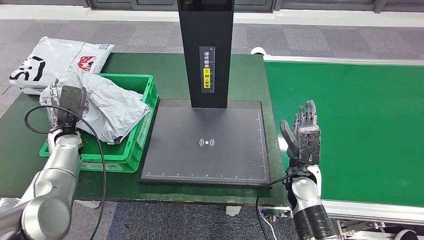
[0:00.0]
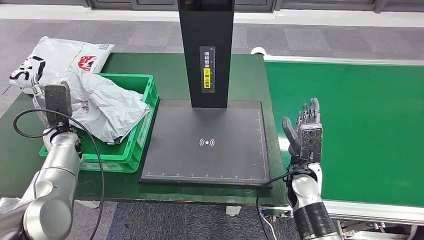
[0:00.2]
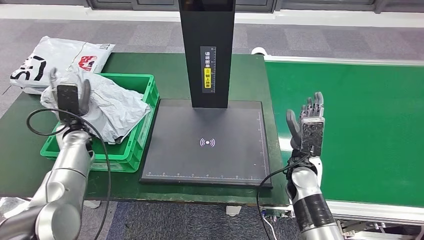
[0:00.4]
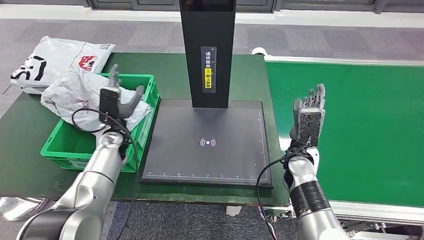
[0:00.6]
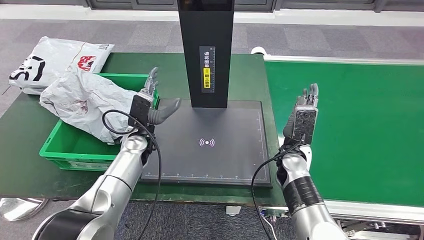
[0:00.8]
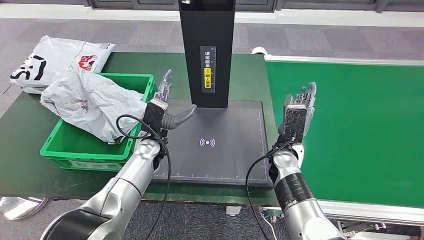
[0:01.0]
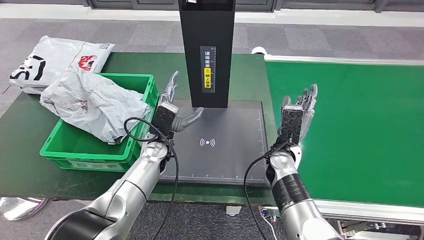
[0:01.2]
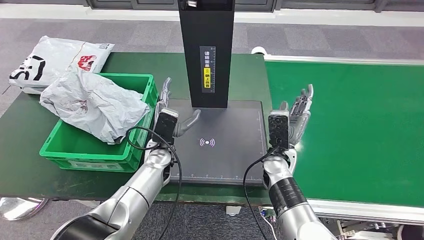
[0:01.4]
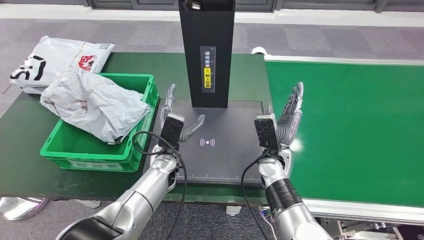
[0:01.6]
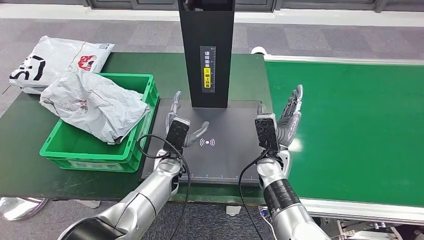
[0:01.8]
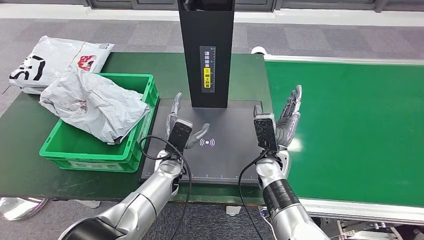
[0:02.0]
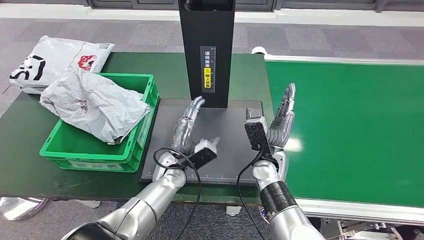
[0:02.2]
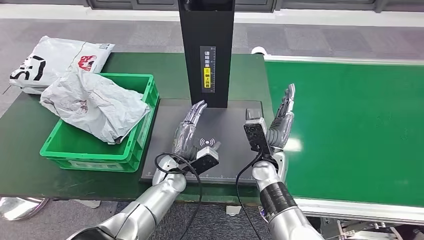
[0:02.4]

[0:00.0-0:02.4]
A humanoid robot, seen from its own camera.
Step, 0:00.0 to 0:02.2: Place the parcel into the delivery box.
0:01.2 to 0:02.4: The left hand shifts approximately 5 cm backward.

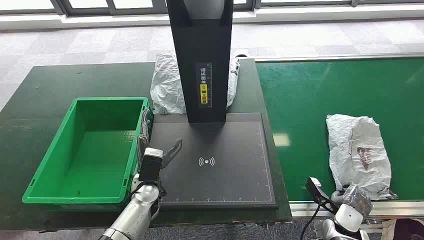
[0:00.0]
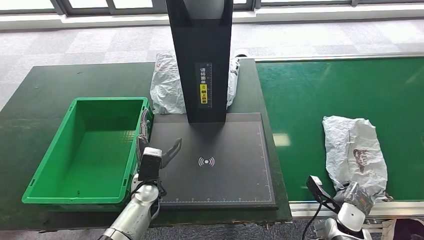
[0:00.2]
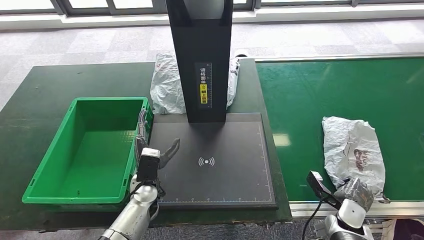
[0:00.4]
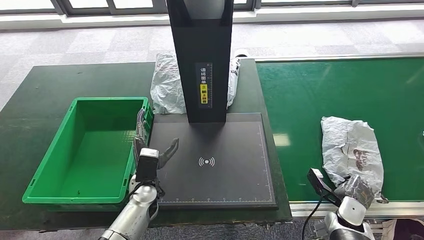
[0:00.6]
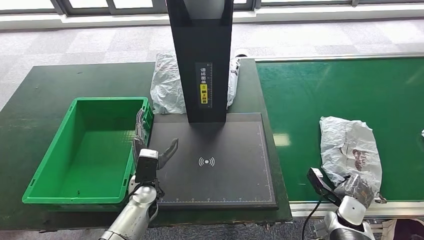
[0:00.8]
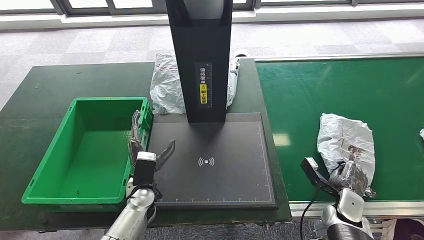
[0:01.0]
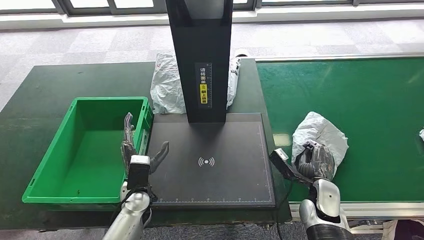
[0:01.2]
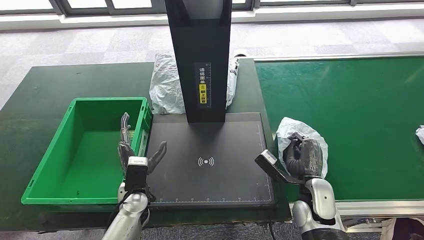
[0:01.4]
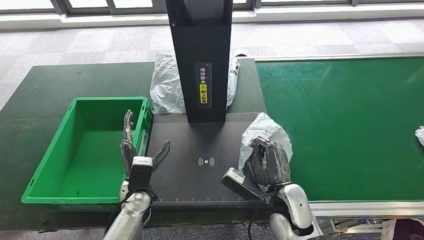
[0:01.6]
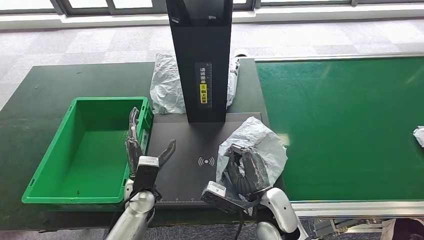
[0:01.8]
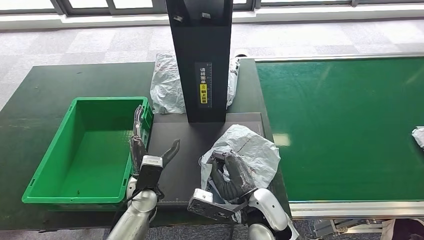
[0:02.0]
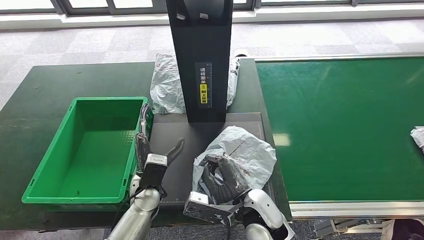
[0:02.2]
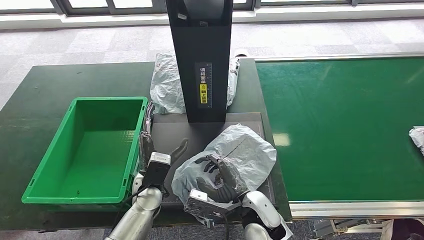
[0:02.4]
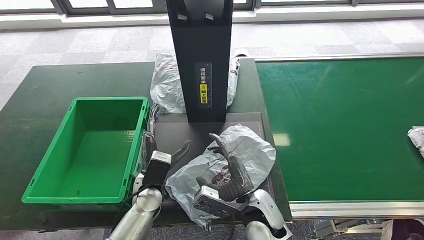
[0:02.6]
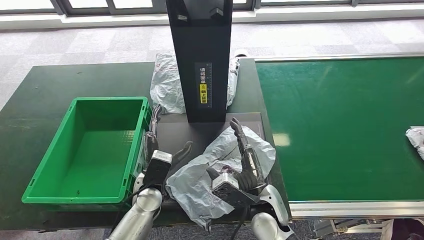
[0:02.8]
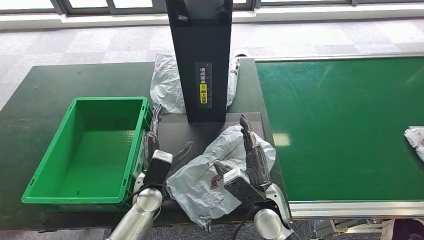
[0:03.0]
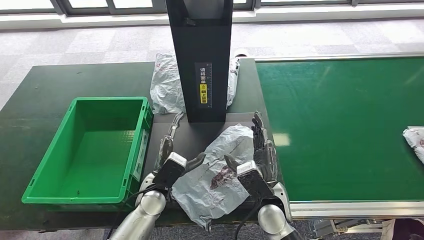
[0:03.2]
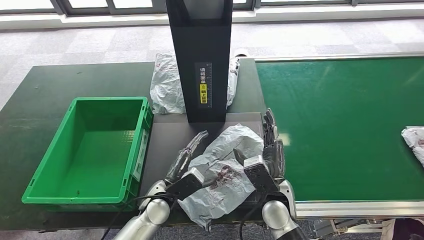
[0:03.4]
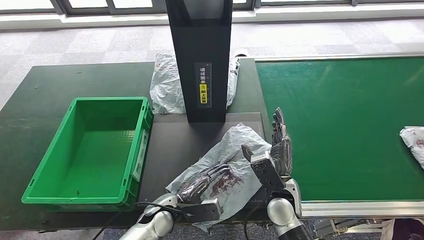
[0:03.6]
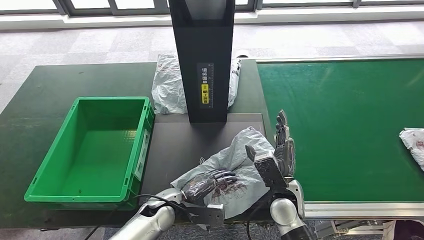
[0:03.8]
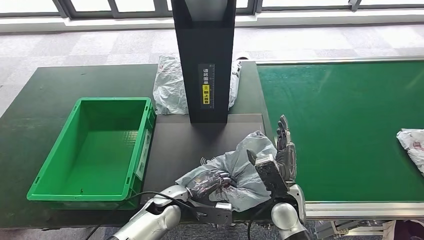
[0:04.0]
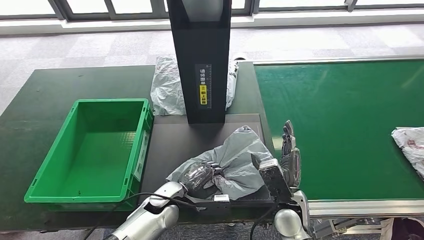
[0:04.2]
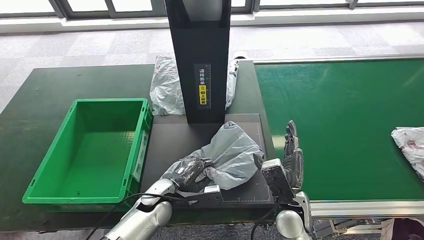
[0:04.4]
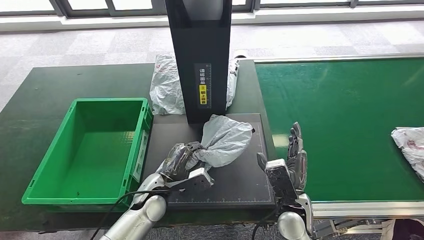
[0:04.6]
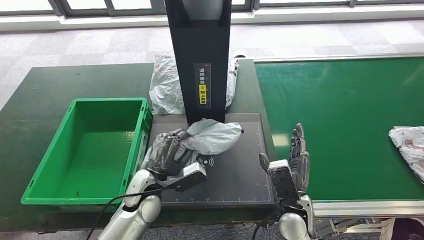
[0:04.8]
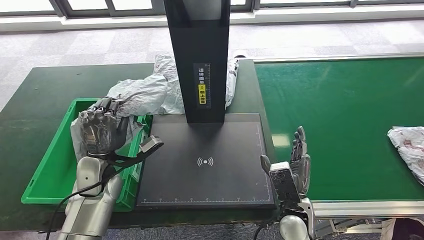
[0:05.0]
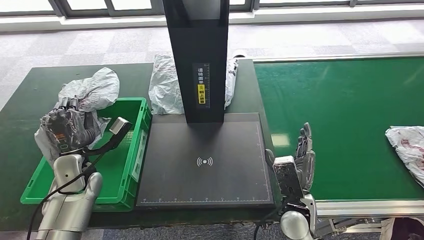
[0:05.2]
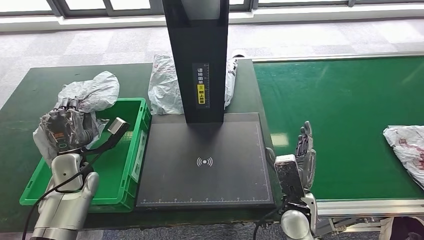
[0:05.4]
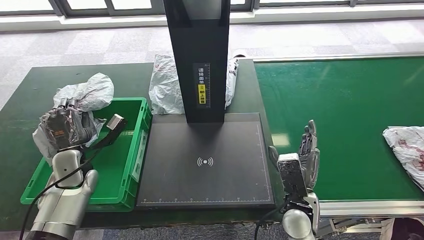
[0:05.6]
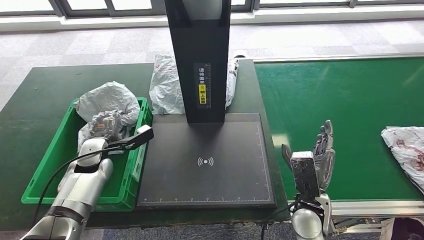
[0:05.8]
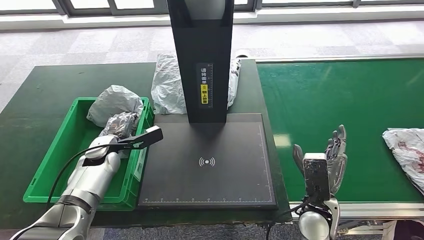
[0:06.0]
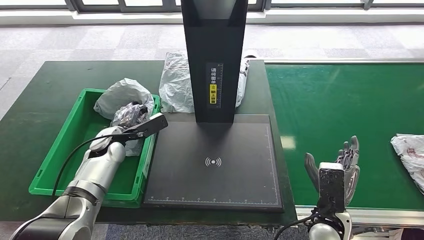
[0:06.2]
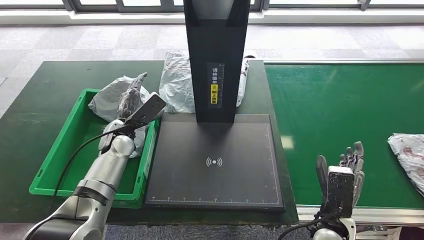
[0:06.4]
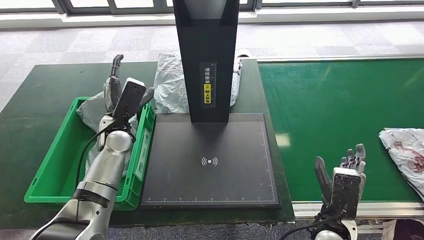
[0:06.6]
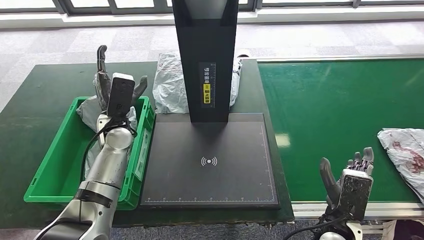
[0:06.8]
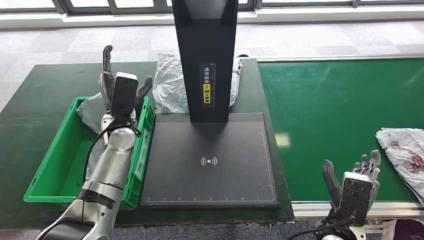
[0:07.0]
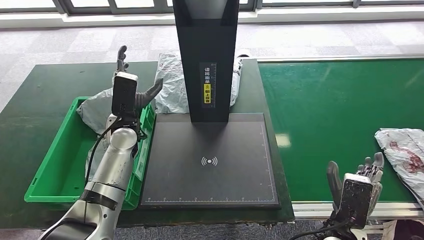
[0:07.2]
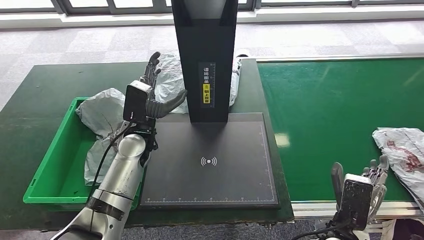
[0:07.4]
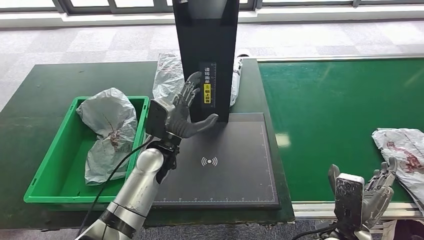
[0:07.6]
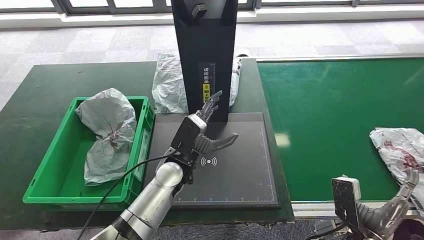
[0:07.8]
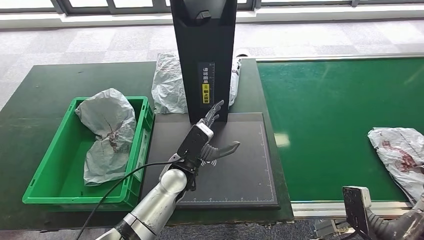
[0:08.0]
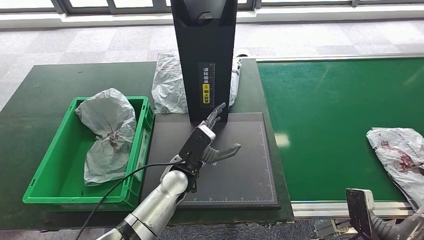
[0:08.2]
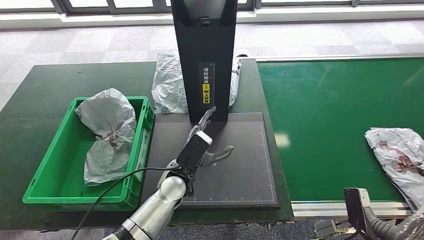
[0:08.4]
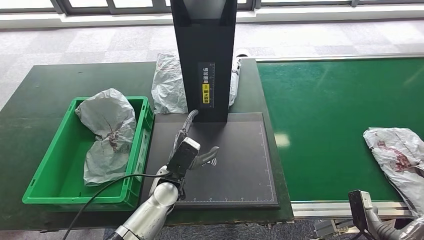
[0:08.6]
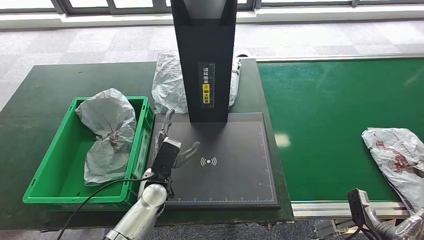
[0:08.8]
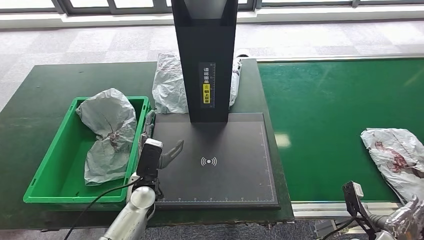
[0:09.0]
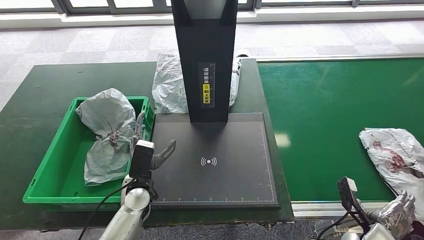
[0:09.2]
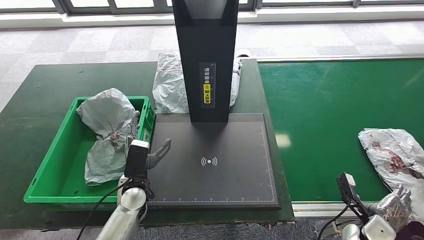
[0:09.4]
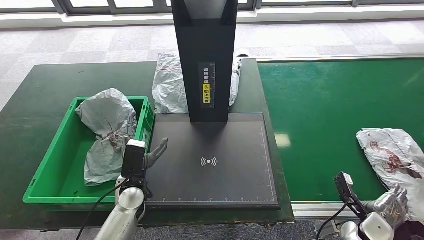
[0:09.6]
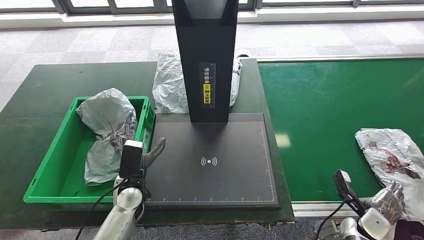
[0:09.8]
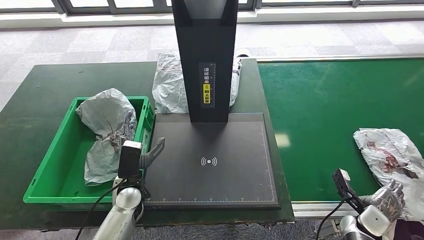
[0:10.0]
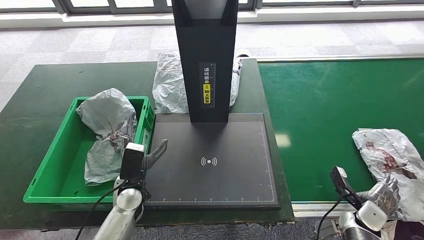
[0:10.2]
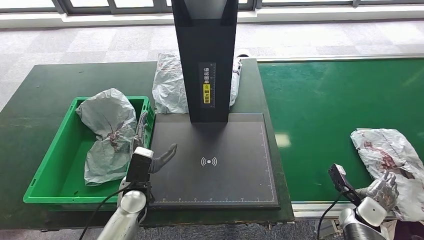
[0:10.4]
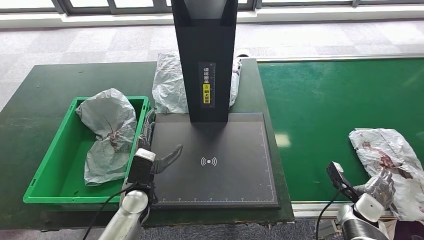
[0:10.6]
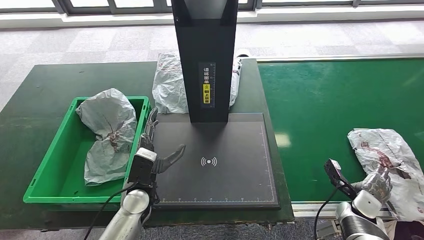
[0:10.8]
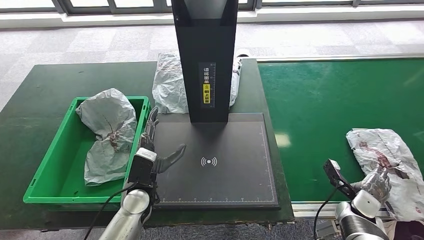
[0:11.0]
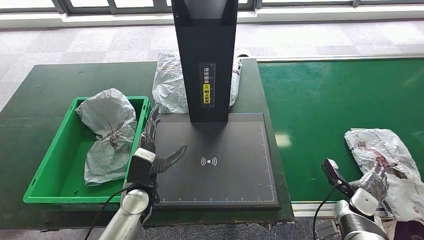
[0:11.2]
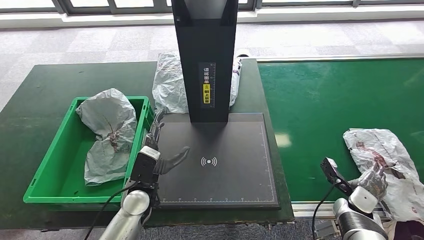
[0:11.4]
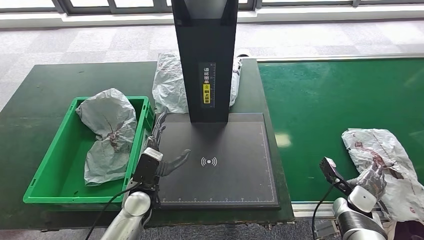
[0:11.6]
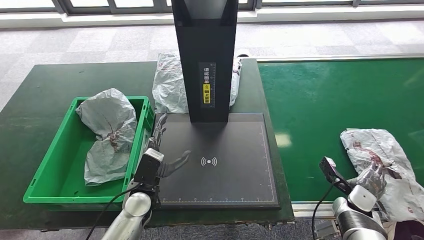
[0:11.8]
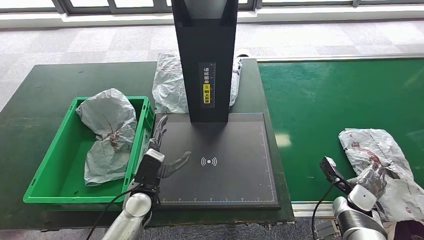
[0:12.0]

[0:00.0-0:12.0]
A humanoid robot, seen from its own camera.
Step, 0:00.0 to 0:02.0: Take the parcel off the conveyor belt.
Step, 0:02.2 to 0:04.2: Place the parcel onto the inbound machine.
Step, 0:04.4 to 0:05.4: Pick up the parcel from the inbound machine.
Step, 0:05.6 to 0:08.0: Put the parcel inside the courier box.
0:01.6 to 0:03.0: The right hand goes approximately 5 cm to the left.
0:07.6 to 0:09.0: The right hand heads to the right and downward, covering some 15 cm, while the left hand travels downward and backward by approximately 10 cm.
0:09.0 to 0:10.4: The right hand is displaced forward by some 10 cm.
0:10.4 to 0:12.0: The hands move only a little.

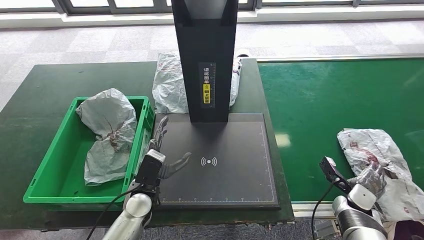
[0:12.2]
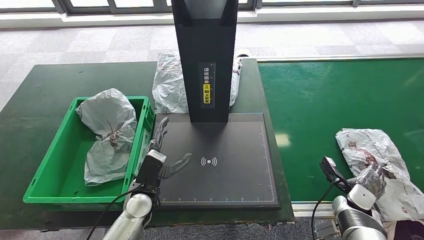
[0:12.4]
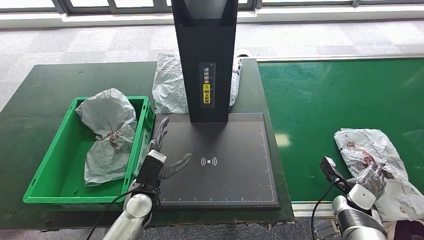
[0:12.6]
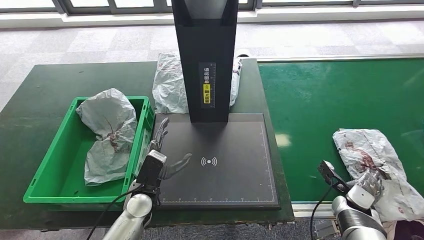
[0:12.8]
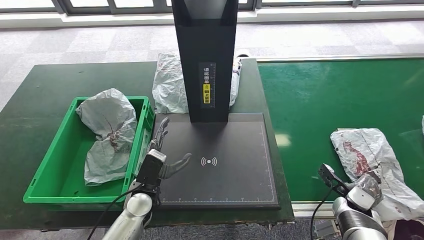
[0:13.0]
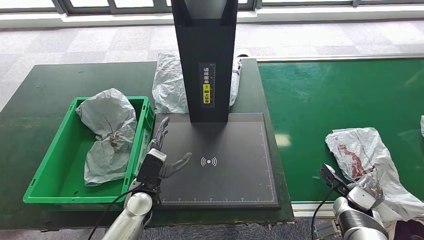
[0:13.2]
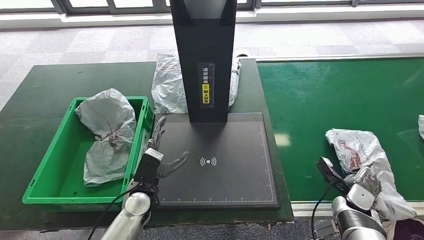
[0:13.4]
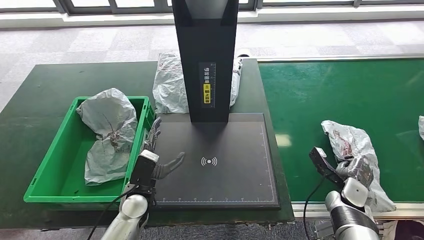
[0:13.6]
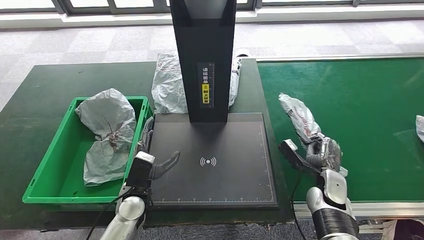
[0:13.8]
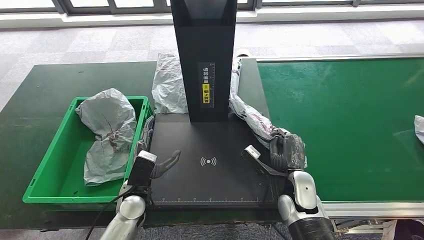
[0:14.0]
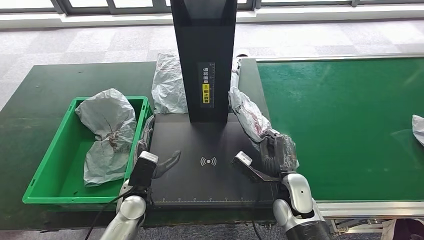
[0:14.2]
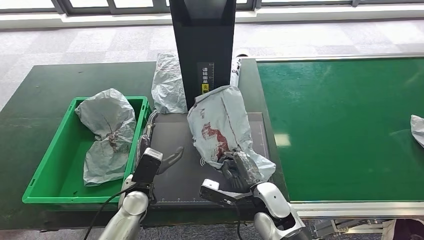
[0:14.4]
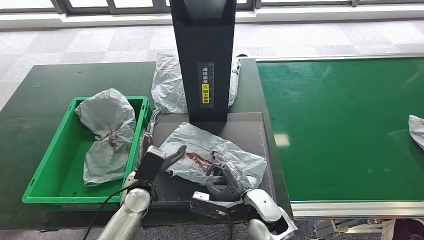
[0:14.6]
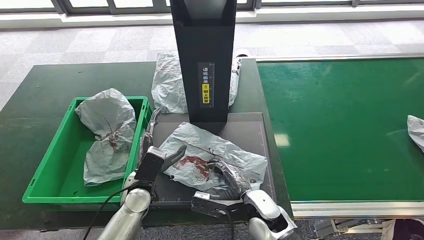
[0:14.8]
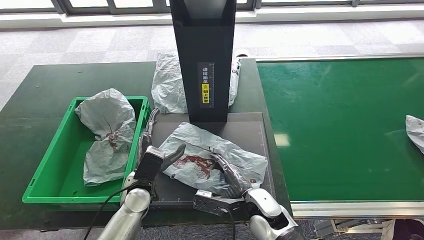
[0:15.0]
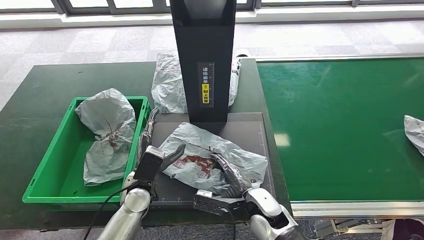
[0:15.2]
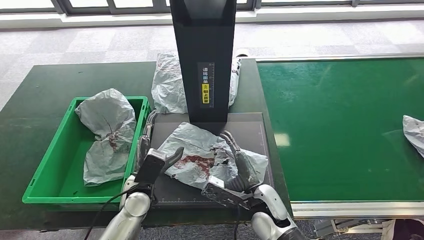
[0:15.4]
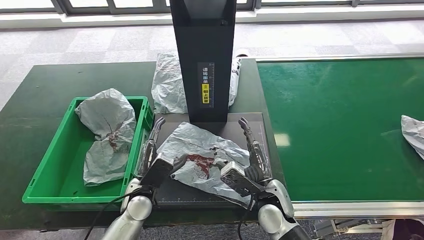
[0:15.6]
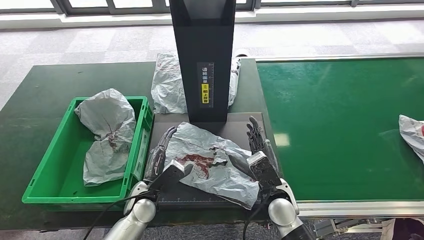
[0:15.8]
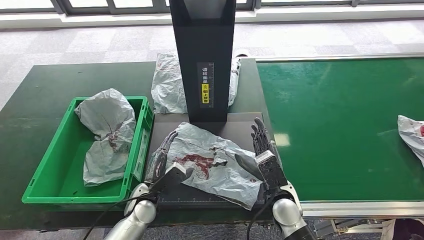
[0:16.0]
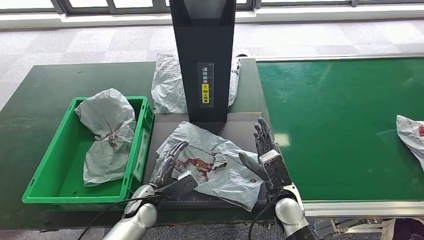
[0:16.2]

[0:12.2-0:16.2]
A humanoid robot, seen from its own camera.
Step, 0:12.2 to 0:14.2: Pick up the parcel from the conveyor belt.
0:12.2 to 0:13.6: The hands stay close to where they were, moving slightly.
0:13.6 to 0:14.8: The right hand goes roughly 25 cm to the left.
0:14.8 to 0:16.2: The left hand is displaced downward by about 5 cm, while the right hand goes some 5 cm to the right.
